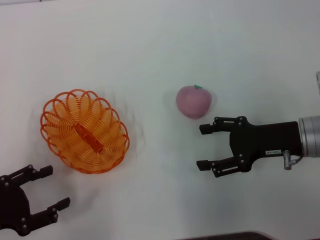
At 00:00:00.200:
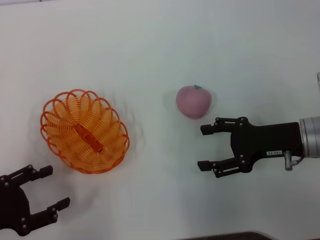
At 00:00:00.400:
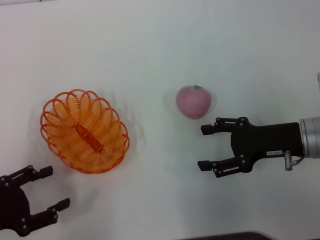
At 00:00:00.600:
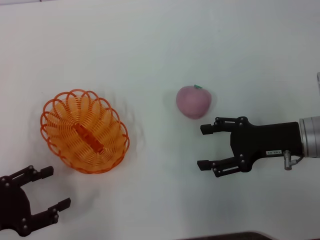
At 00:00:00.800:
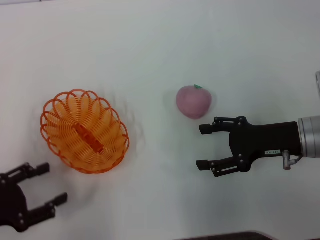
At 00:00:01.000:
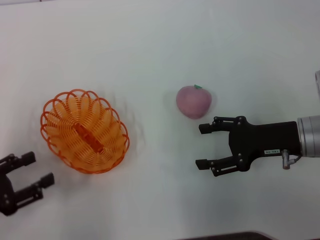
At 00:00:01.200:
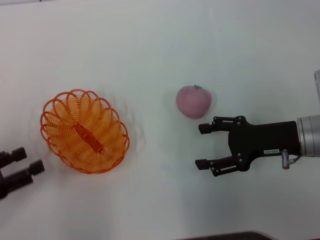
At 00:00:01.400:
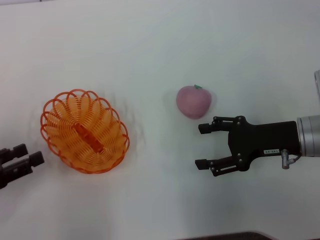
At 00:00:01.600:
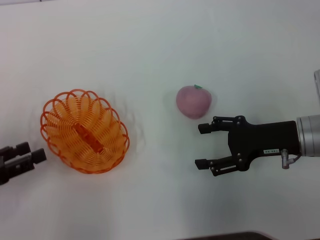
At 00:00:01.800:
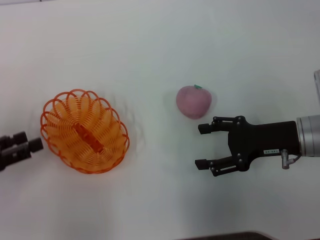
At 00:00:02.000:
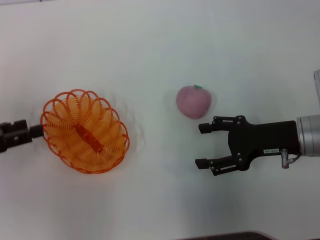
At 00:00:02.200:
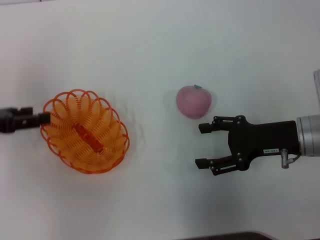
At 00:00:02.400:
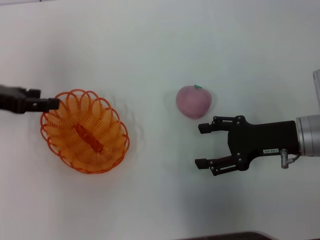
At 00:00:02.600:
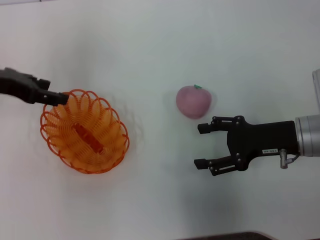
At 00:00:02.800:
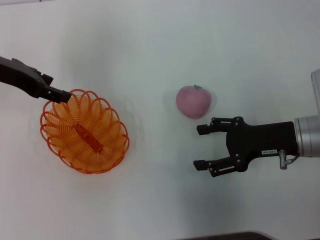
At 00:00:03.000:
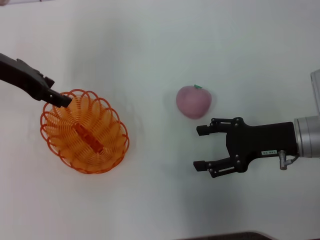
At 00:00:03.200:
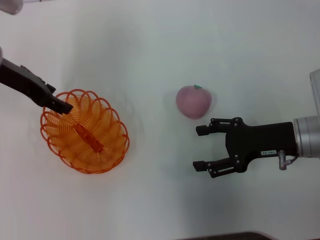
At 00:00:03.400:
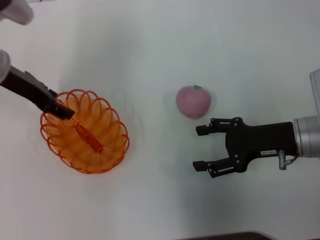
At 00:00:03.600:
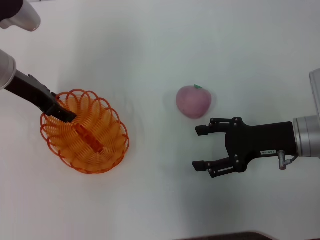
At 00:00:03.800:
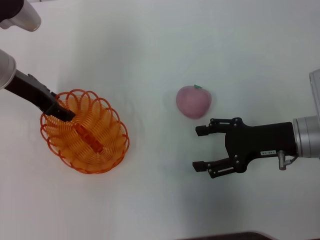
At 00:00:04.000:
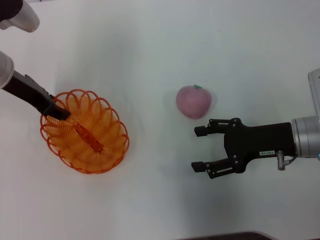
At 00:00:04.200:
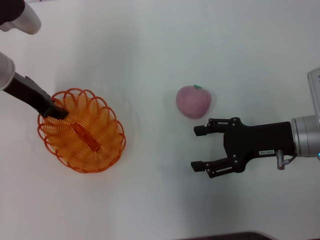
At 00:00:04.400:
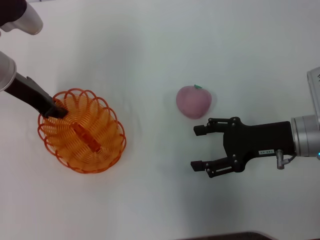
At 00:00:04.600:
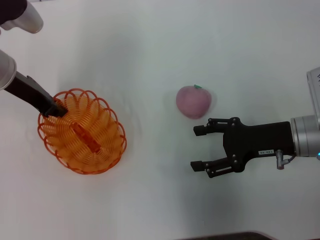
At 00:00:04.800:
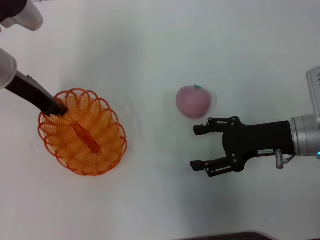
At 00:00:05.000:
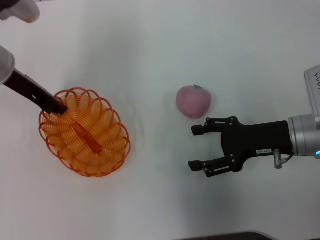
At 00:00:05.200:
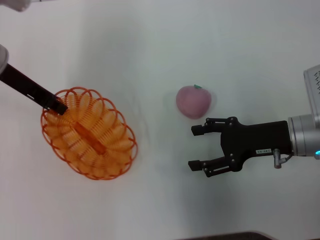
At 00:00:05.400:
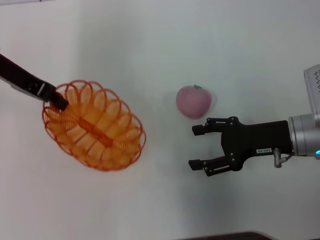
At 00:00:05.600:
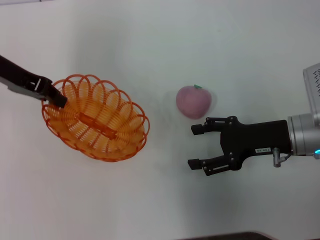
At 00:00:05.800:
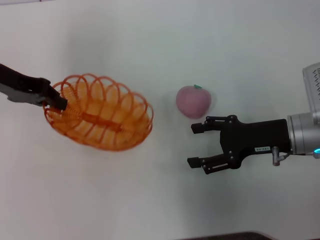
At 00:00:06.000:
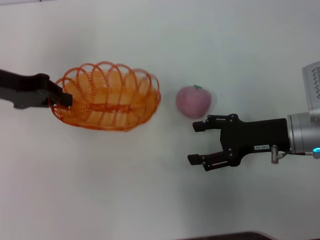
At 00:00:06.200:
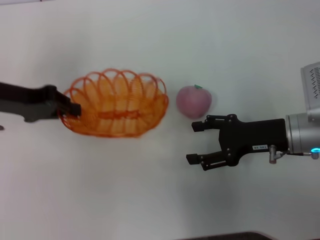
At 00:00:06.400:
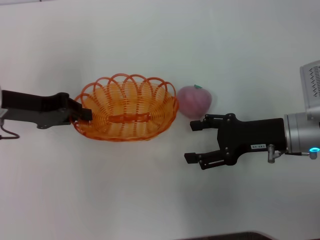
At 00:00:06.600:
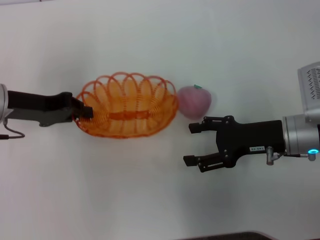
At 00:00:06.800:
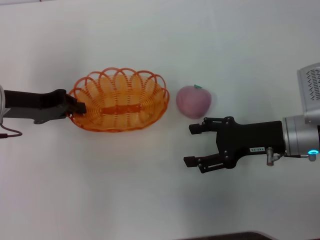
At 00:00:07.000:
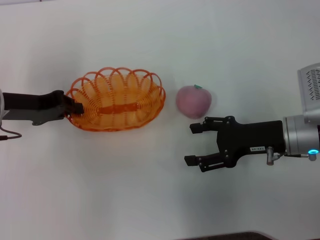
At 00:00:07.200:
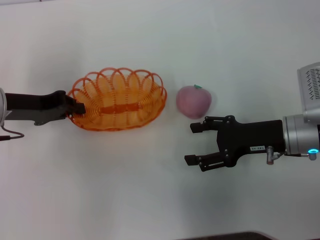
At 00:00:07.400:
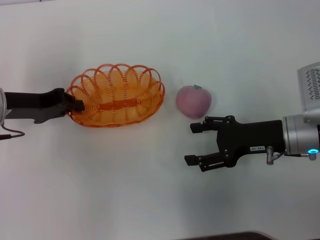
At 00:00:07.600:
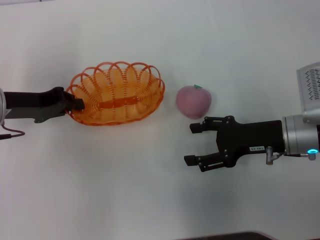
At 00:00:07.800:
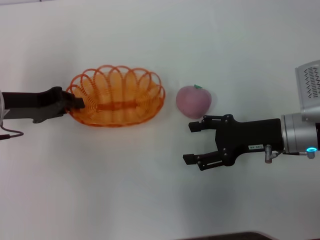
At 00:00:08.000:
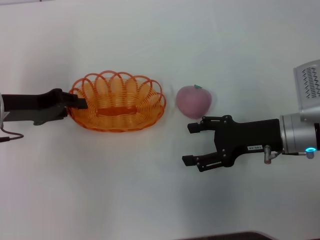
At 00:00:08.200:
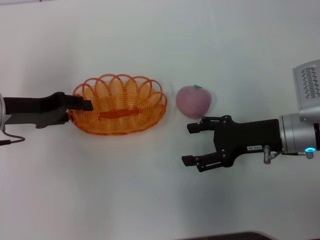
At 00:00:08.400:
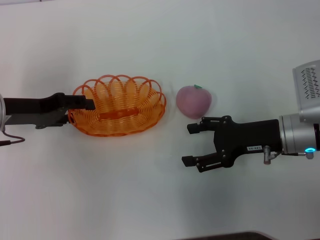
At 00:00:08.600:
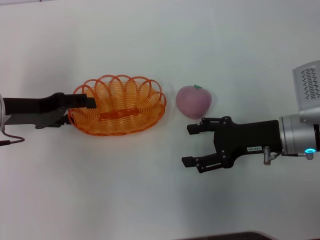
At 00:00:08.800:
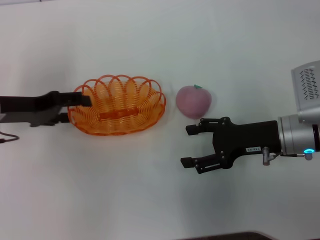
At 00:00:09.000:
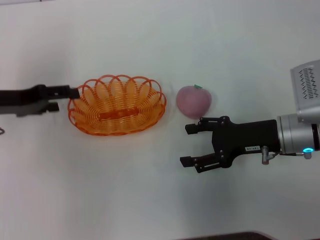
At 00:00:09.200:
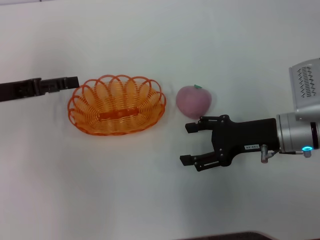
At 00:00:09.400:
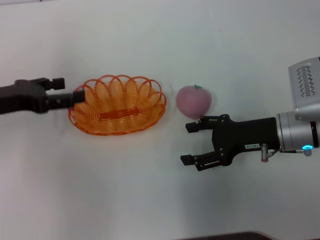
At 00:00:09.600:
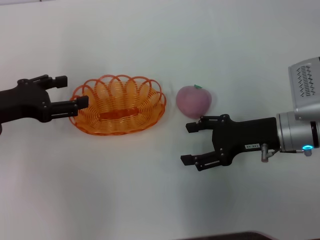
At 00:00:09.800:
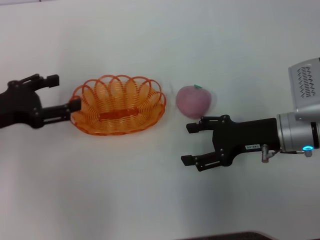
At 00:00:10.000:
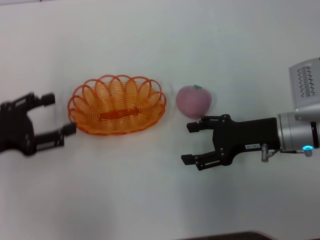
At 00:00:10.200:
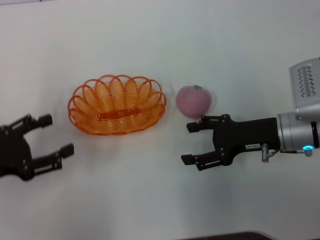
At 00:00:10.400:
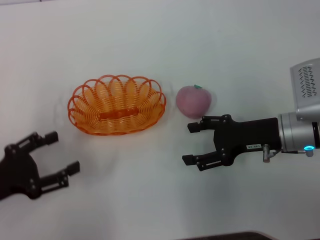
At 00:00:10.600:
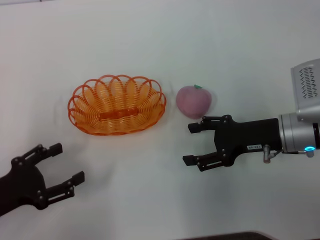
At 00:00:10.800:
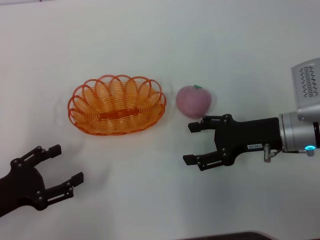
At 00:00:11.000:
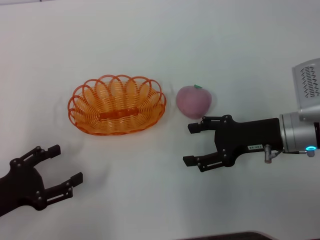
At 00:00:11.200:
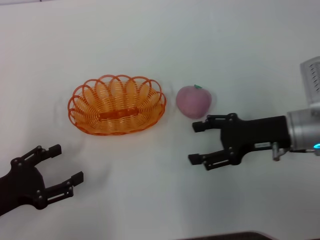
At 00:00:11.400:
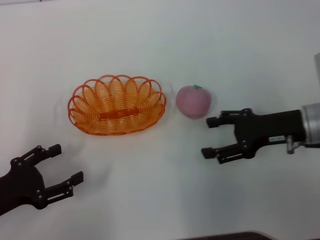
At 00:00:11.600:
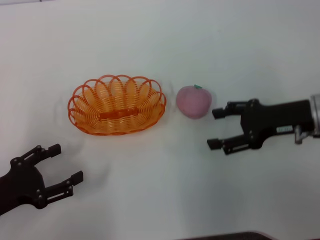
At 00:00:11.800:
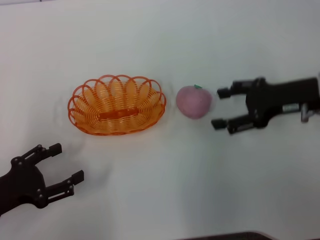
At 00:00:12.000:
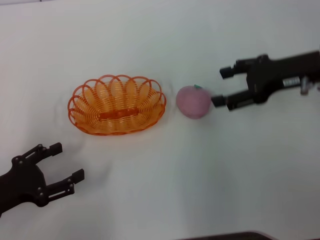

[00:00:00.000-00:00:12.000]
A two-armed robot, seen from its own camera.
Step, 00:00:00.000 to 00:00:05.200: Pick up the basket with the left gripper.
Step, 00:00:05.400 to 00:00:09.000: Place the basket in the center of view with the left gripper.
00:00:00.000 to 00:00:01.600: The left gripper ends up roughly 5 cm from where it was.
00:00:01.600 to 00:00:03.000: The left gripper heads forward, to the right and upward, covering roughly 25 cm.
00:00:03.000 to 00:00:04.400: The left gripper closes.
00:00:04.400 to 00:00:06.000: The left gripper travels to the left by some 5 cm.
00:00:06.000 to 00:00:07.600: The left gripper shifts approximately 5 cm downward.
00:00:07.600 to 00:00:09.000: The left gripper opens up.
00:00:09.000 to 00:00:10.400: The left gripper moves backward, approximately 15 cm.
00:00:10.400 to 00:00:12.000: The right gripper heads upward, covering approximately 10 cm.

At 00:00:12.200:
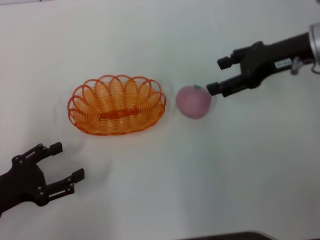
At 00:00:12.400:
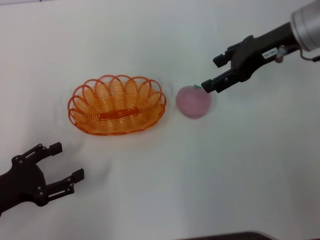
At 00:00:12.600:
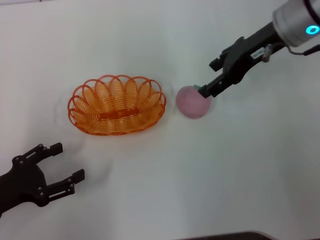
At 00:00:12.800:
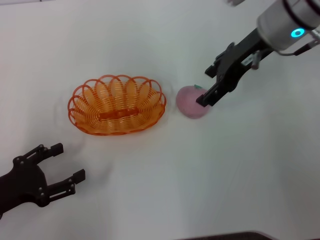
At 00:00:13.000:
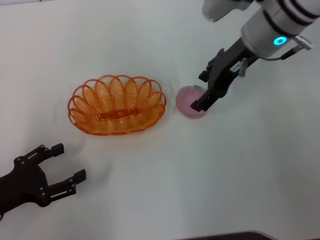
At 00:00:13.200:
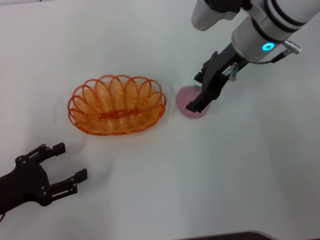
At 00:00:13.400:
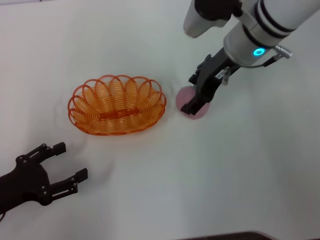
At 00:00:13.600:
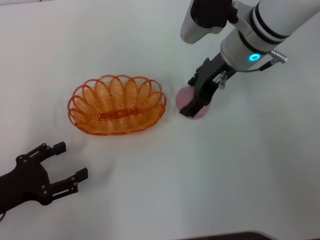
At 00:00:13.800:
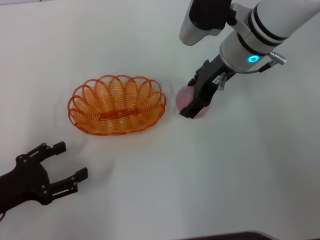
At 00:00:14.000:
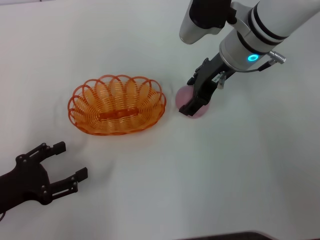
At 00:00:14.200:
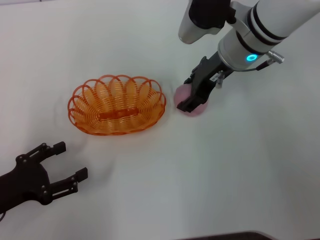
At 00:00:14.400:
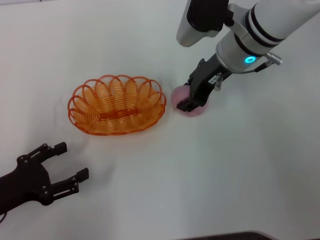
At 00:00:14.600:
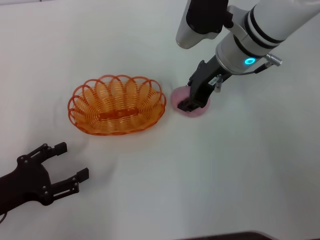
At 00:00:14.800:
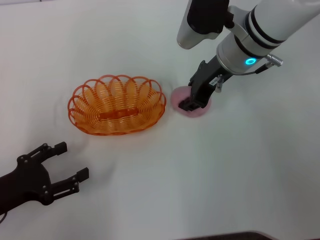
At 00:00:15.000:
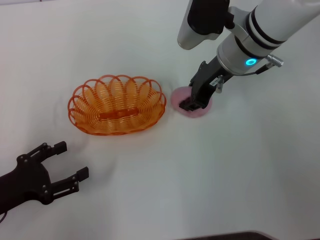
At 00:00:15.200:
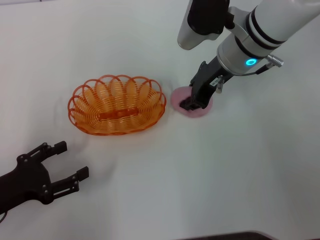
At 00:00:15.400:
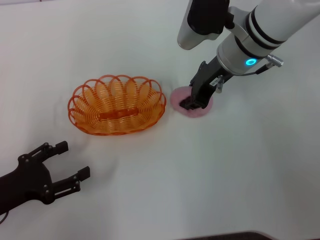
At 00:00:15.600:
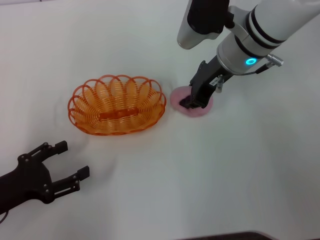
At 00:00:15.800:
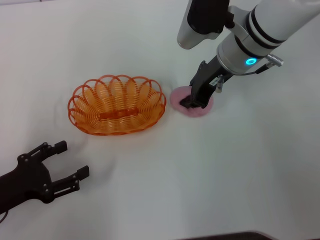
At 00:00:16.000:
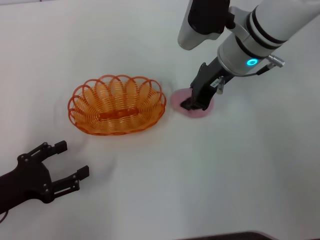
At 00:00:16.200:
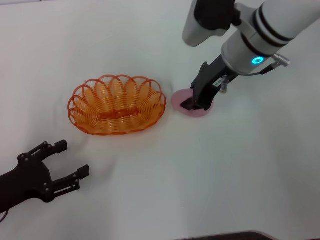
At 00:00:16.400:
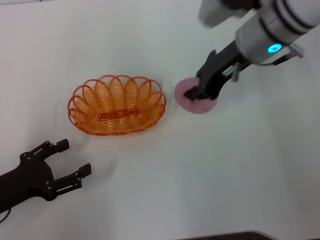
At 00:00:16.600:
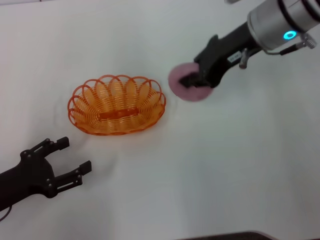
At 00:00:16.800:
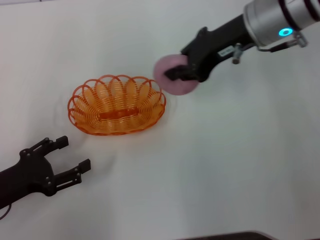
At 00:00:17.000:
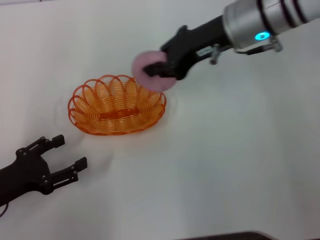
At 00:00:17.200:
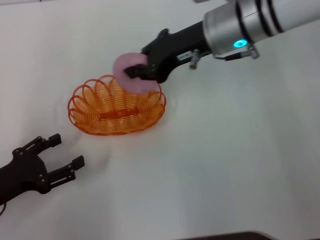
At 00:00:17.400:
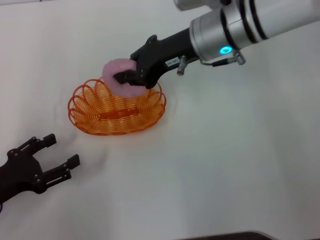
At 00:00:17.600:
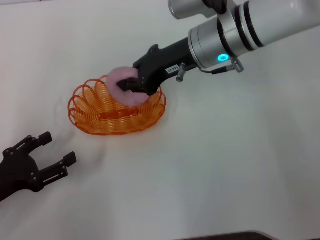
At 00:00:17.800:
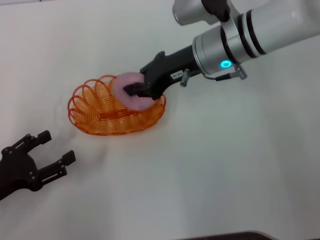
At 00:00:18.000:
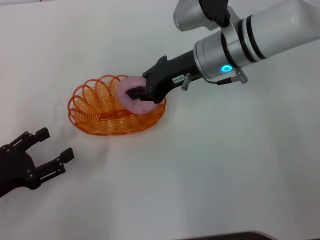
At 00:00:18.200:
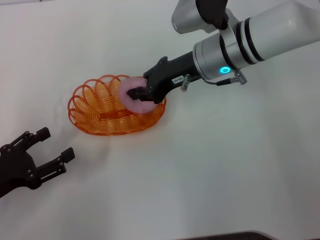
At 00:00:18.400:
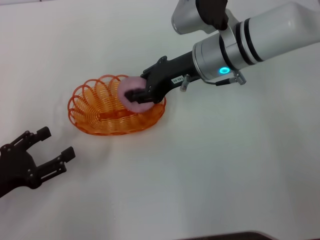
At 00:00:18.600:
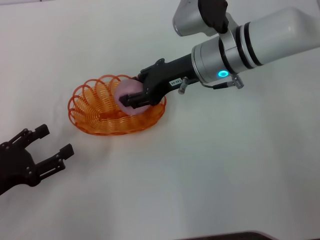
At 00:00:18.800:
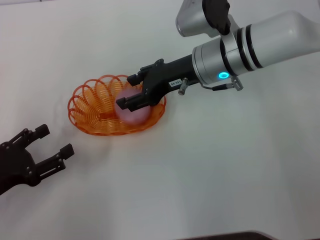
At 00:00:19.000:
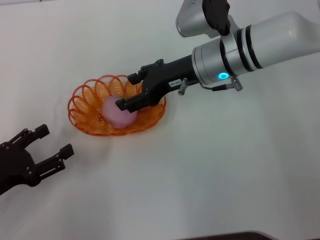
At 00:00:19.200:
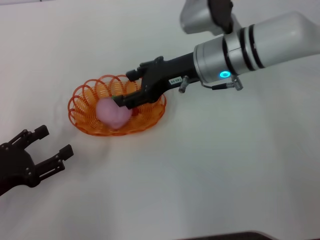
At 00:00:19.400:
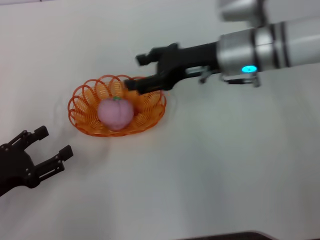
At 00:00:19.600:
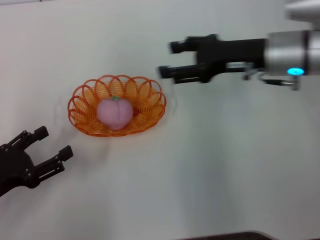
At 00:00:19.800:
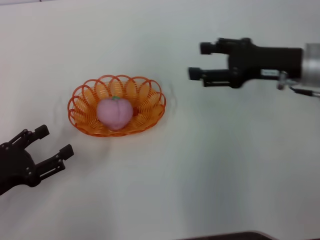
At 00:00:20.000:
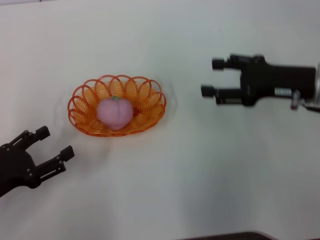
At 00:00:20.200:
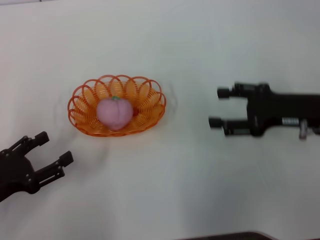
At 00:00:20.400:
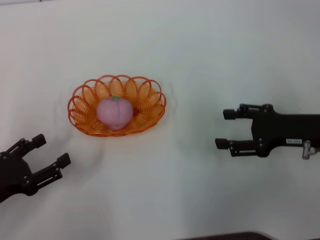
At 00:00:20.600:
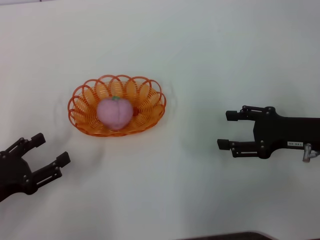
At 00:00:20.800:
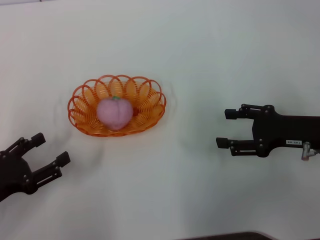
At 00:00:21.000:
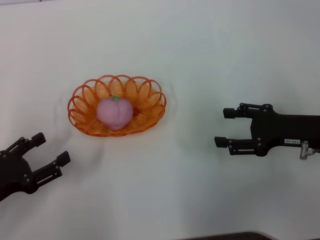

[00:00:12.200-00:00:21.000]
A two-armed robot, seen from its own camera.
Step, 00:00:12.200 to 00:00:16.400: Pick up the peach with the right gripper.
Step, 00:00:16.800 to 00:00:19.200: Place the peach into the basket with the right gripper.
00:00:12.200 to 00:00:13.600: The right gripper goes roughly 10 cm to the left.
00:00:13.600 to 00:00:15.200: The right gripper closes up.
00:00:15.200 to 00:00:16.600: The right gripper is displaced upward by roughly 5 cm.
00:00:16.600 to 00:00:18.000: The right gripper goes about 10 cm downward and to the left.
00:00:18.000 to 00:00:19.600: The right gripper heads to the right, covering about 10 cm, and opens.
00:00:19.600 to 00:00:21.000: The right gripper heads backward, to the right and downward, covering approximately 15 cm.
